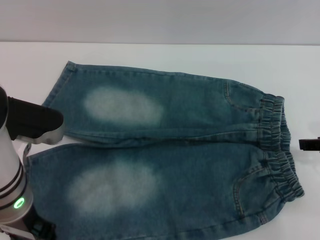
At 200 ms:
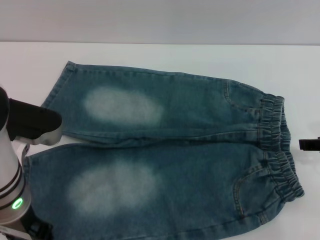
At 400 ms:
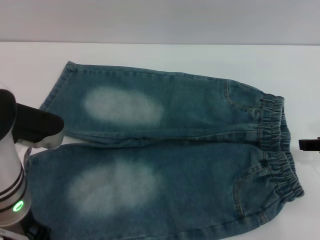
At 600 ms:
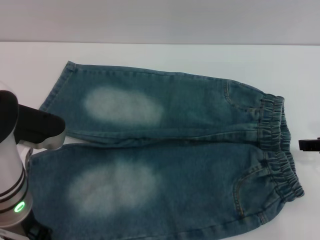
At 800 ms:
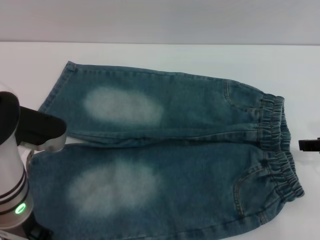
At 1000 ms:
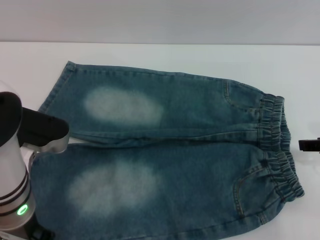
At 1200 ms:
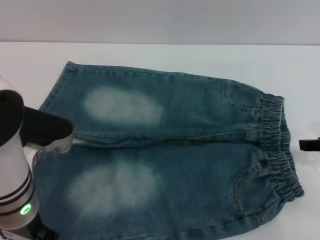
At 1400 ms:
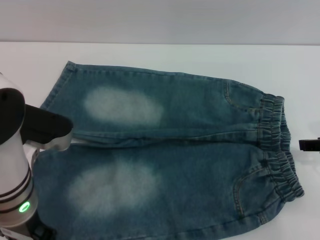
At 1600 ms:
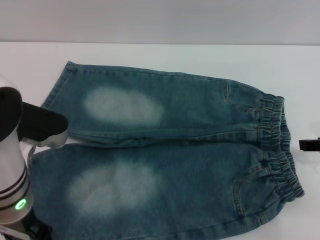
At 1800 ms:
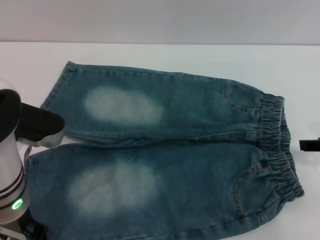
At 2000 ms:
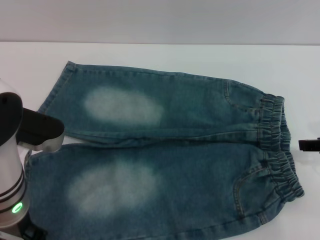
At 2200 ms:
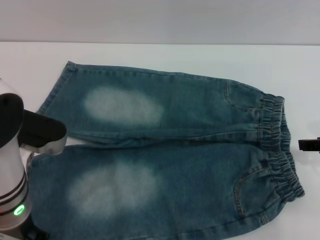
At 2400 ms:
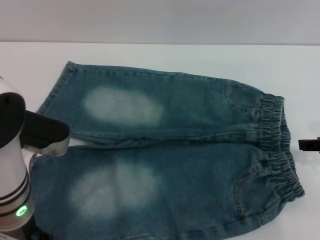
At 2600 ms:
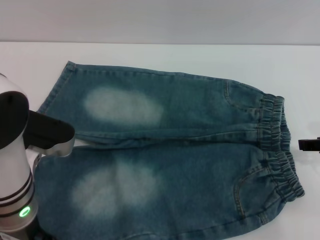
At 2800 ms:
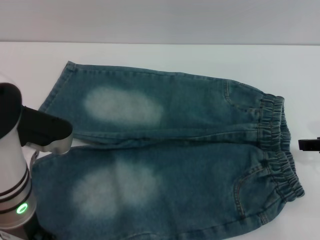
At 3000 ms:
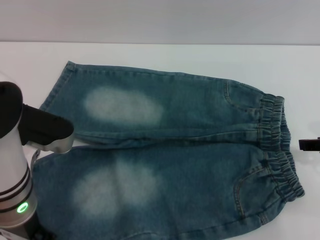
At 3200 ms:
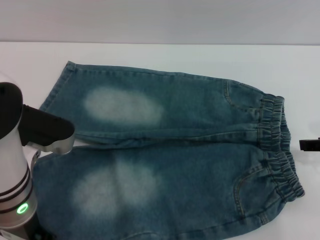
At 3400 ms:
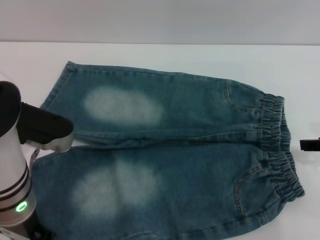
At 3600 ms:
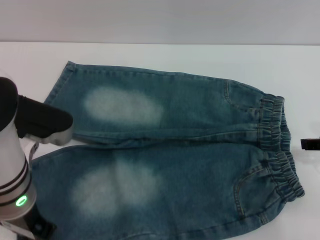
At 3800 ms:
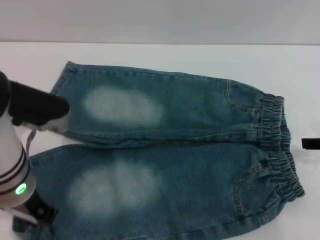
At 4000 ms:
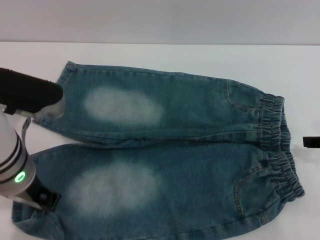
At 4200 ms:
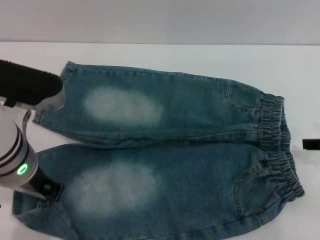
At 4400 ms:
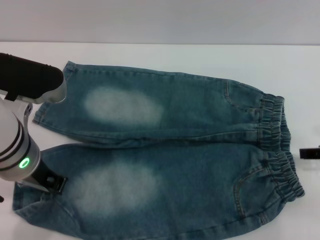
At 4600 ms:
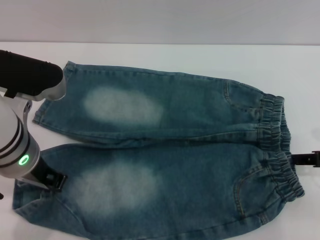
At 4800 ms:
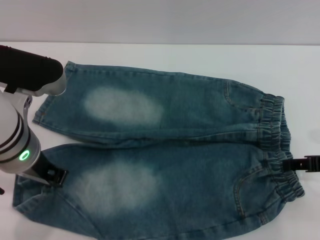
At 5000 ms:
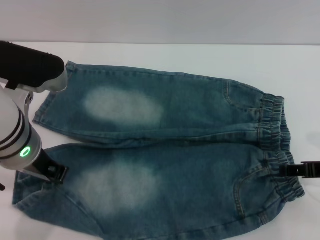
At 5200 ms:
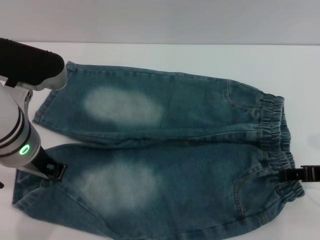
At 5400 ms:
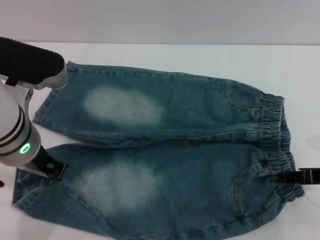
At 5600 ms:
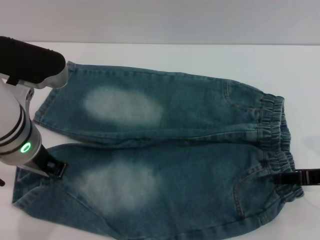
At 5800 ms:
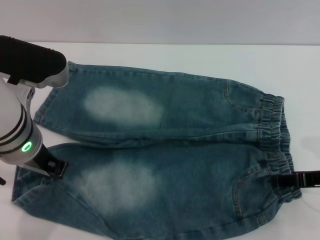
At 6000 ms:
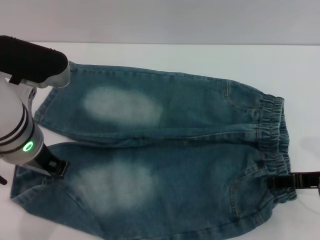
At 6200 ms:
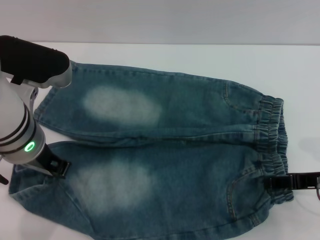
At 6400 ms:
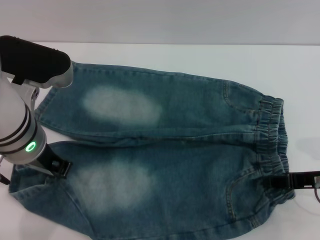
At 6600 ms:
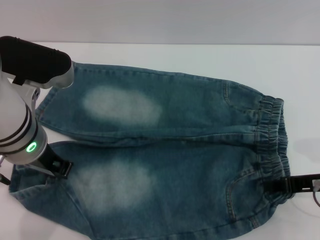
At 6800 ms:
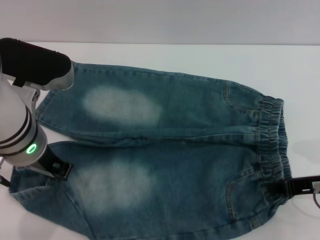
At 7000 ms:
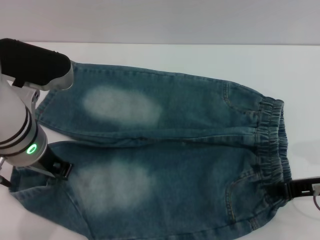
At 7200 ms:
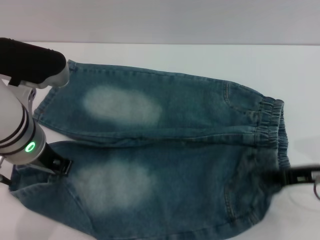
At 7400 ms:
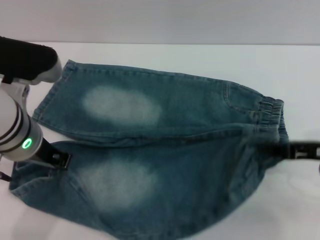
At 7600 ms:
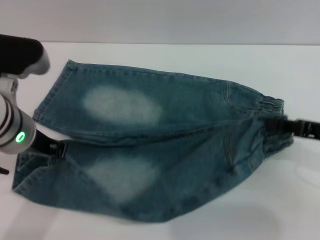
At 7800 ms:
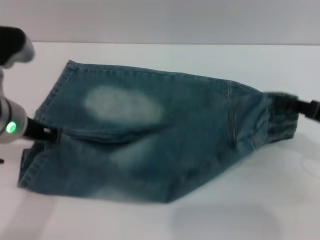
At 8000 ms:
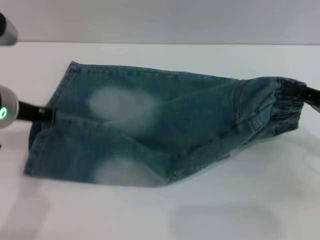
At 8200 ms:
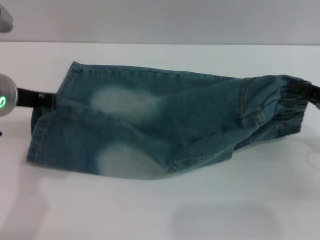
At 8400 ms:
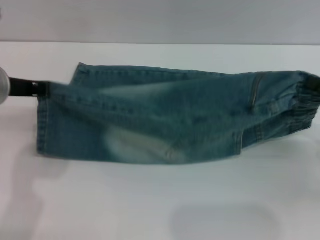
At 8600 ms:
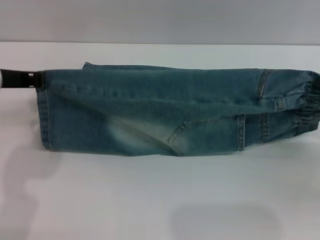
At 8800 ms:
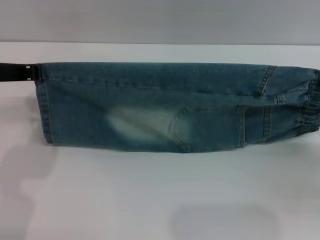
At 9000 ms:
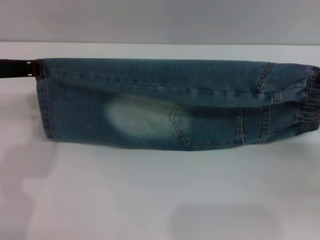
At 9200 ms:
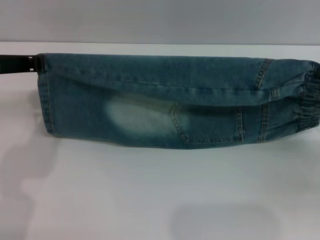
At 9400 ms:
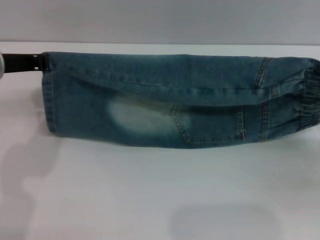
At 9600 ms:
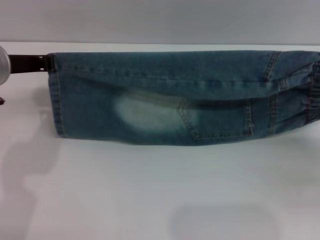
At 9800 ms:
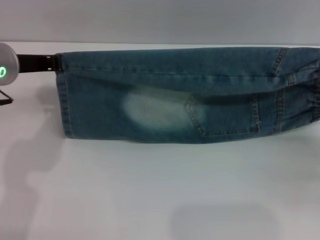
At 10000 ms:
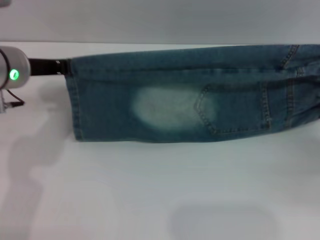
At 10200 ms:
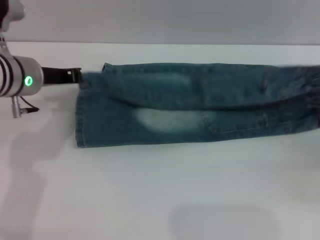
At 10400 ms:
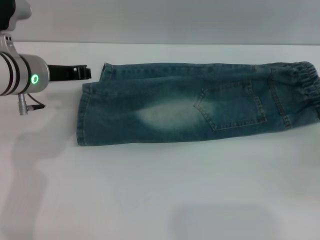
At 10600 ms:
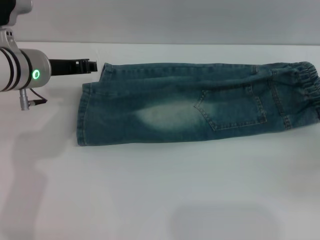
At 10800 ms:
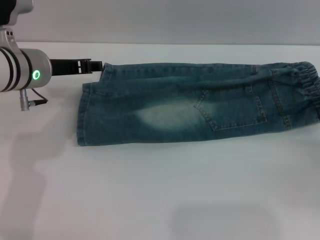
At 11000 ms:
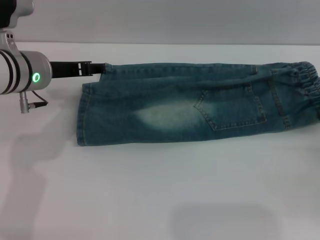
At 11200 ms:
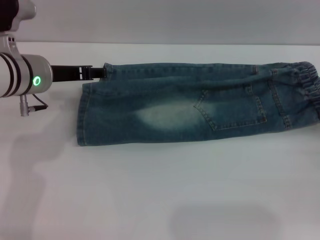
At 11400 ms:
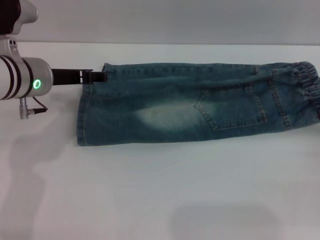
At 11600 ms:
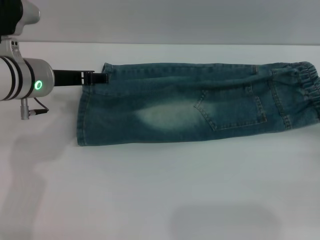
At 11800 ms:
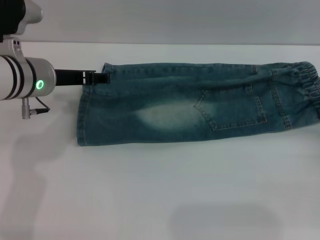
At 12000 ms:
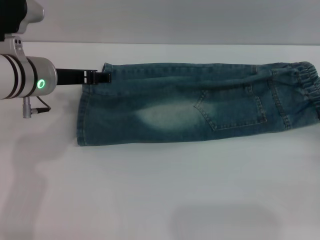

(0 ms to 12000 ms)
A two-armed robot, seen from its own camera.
Step, 0 ms - 10600 ms: Fold the bottom of the pants upward with both grippers.
0 ms - 1600 ms: Neither gripper changes place.
1600 ms - 3000 ms: The two grippers keep their place.
3000 ms - 4400 ms: The left gripper closes up.
4400 ms - 6000 ms: The grippers move only a little.
6000 ms - 7600 ms: The right gripper closes up.
7600 ms - 9000 ms: The right gripper is displaced to the right and downward by some 10 cm; the left gripper shifts roughly 5 cm to the left.
9000 ms - 10400 ms: The left gripper is displaced downward and forward by about 10 cm.
10400 ms - 12000 ms: The left gripper opens up.

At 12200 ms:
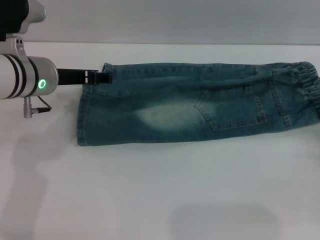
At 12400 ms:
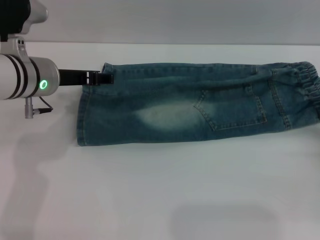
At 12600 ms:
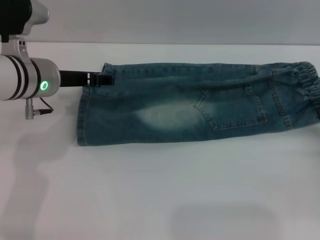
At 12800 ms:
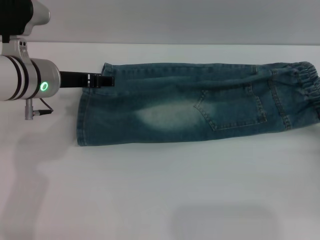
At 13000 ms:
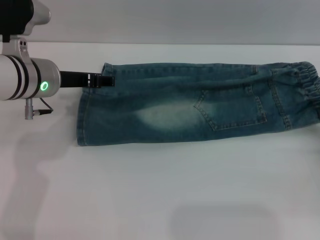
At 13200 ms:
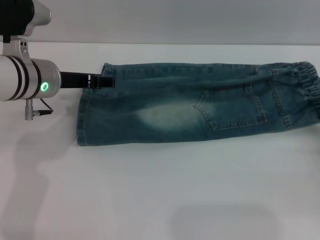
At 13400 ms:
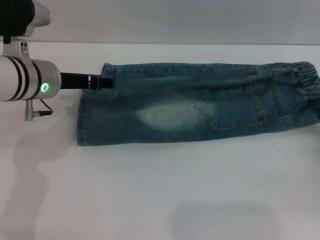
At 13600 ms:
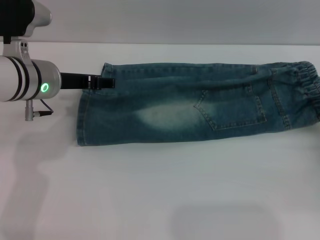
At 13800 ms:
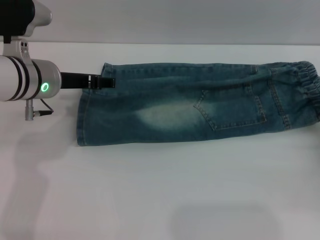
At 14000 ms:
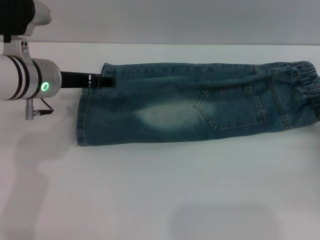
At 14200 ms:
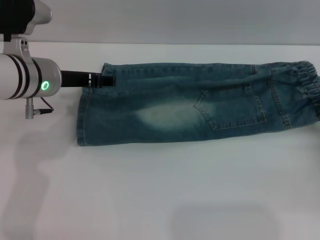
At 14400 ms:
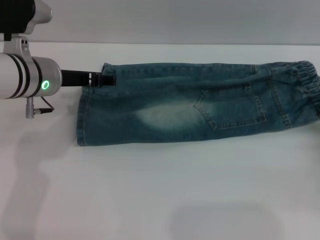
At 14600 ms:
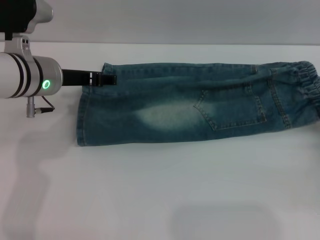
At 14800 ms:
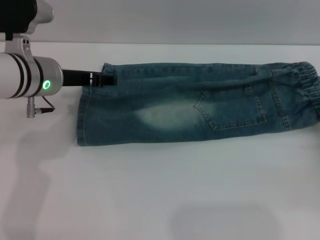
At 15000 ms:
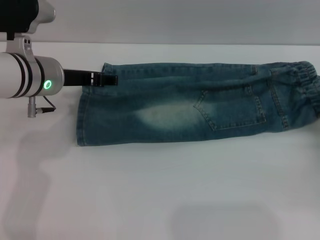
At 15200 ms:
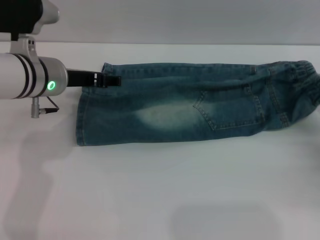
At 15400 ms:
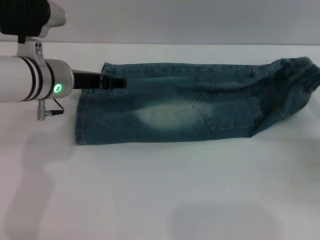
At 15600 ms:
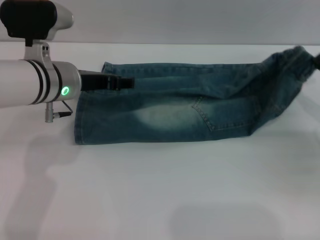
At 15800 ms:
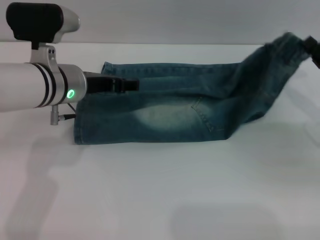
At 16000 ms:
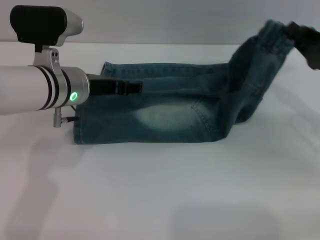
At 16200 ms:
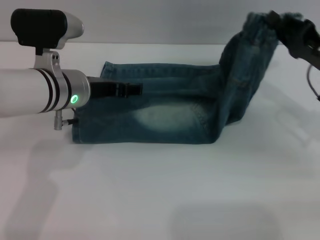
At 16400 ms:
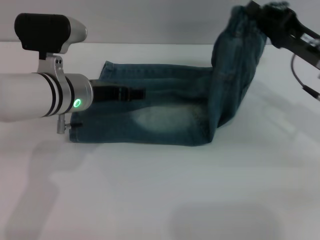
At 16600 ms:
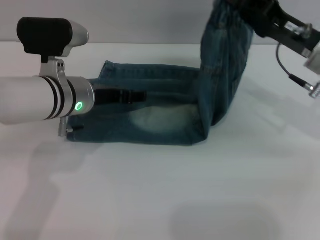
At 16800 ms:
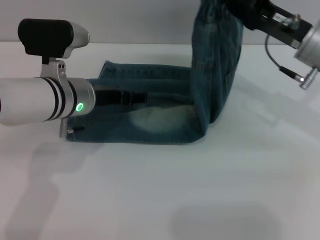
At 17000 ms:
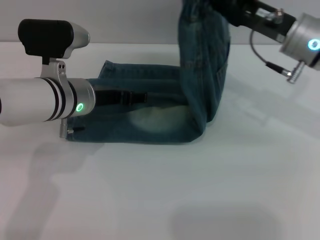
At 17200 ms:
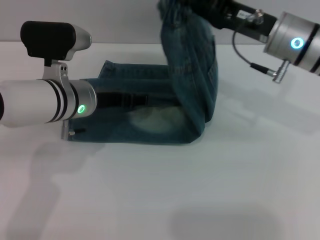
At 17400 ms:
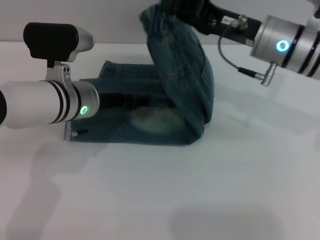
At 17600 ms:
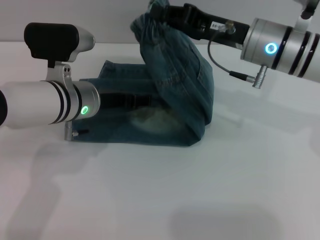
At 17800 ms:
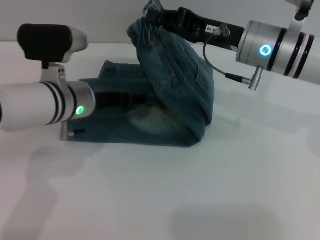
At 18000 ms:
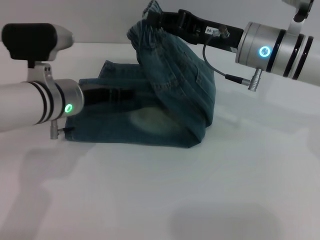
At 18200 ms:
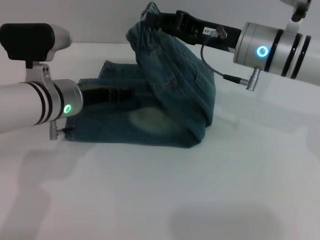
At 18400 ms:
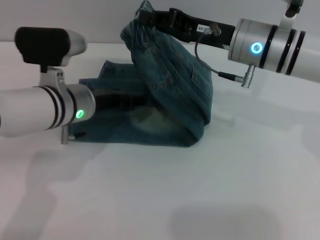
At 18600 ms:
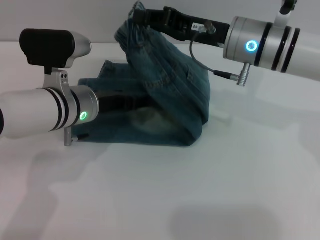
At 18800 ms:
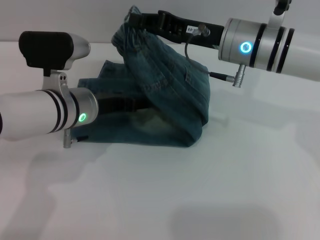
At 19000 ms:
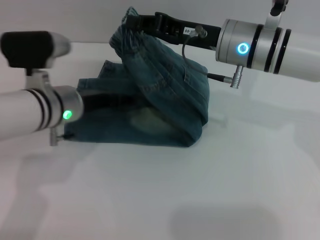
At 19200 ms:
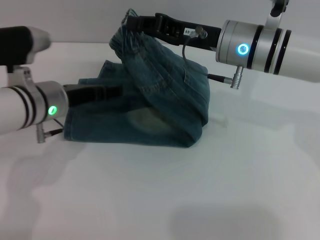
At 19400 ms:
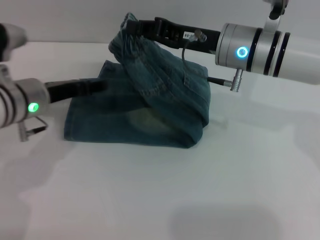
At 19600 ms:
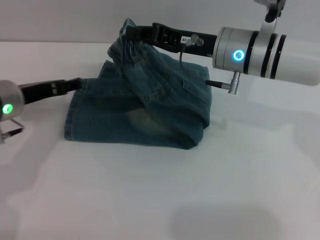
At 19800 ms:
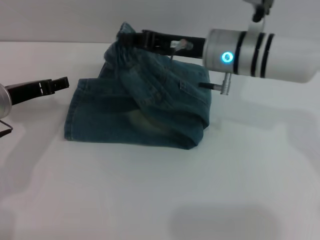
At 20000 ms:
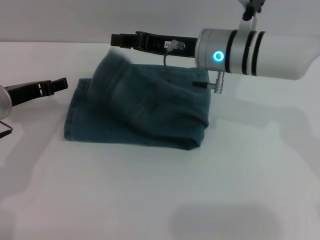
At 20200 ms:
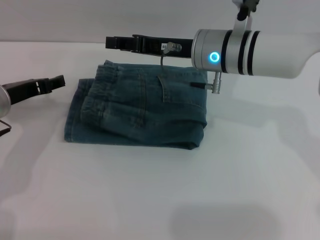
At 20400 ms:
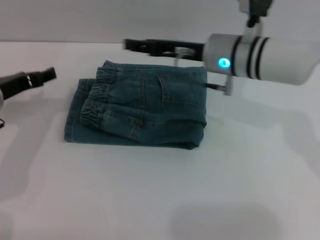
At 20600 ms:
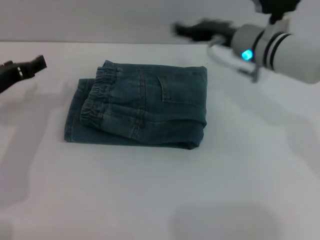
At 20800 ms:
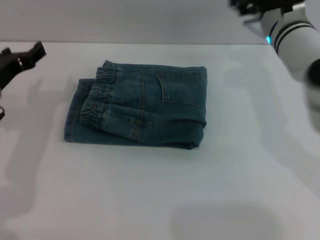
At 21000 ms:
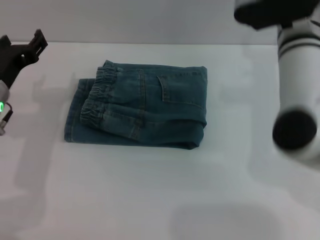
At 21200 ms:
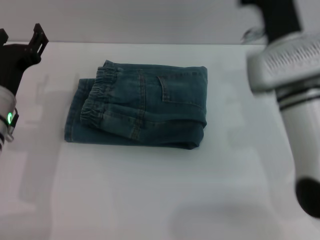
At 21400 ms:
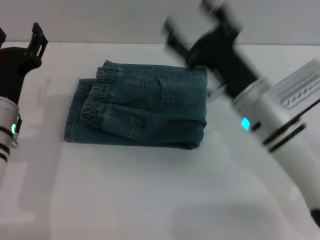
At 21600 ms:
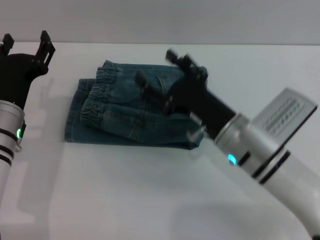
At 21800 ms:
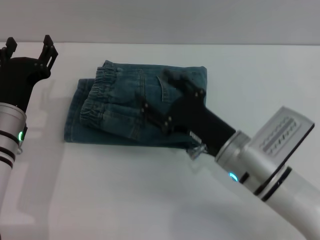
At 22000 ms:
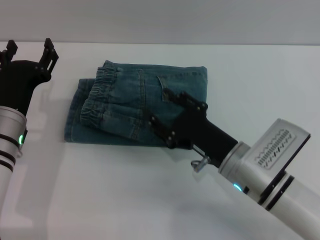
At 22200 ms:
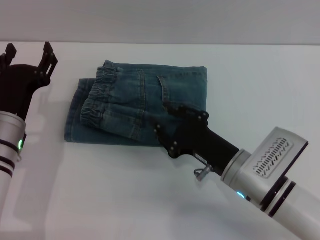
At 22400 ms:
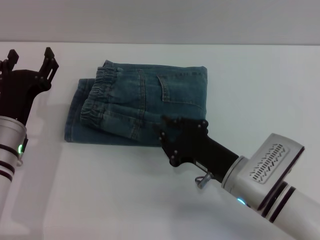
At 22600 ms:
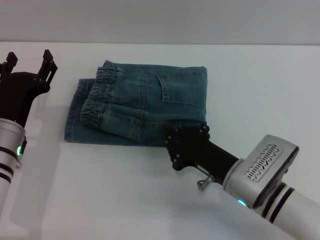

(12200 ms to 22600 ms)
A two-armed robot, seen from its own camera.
Step, 12200 ms - 20200 ms: Fold the pants from right to left with the right gripper.
12200 ms - 13600 ms: The grippers move only a little.
13600 ms - 15200 ms: The right gripper closes up.
15200 ms - 16600 ms: The right gripper shifts approximately 20 cm to the left, upward and forward.
16600 ms - 18200 ms: The right gripper travels to the left by about 10 cm.
18200 ms - 19600 ms: The left gripper goes approximately 5 cm to the left.
19600 ms - 21200 ms: The right gripper is displaced backward by roughly 5 cm, and opens up.
21200 ms - 22600 ms: The right gripper shifts some 15 cm downward and backward, and closes up; the left gripper ends up some 5 cm from where it was.
